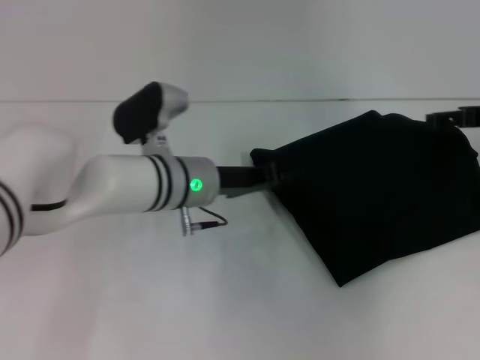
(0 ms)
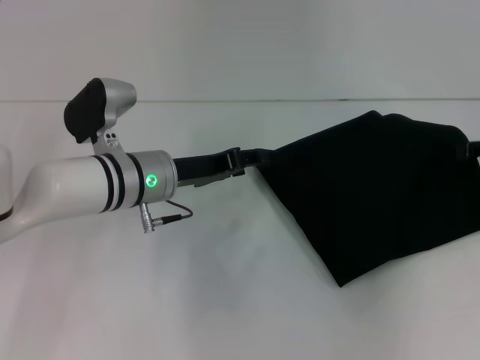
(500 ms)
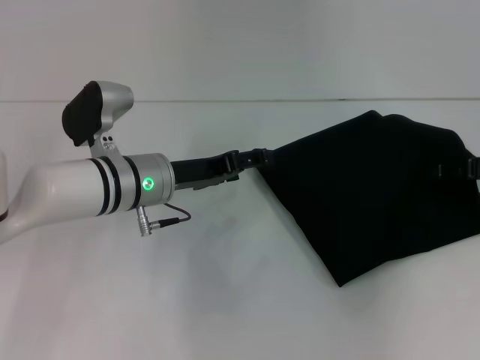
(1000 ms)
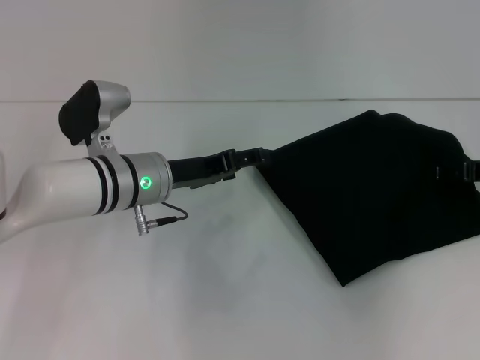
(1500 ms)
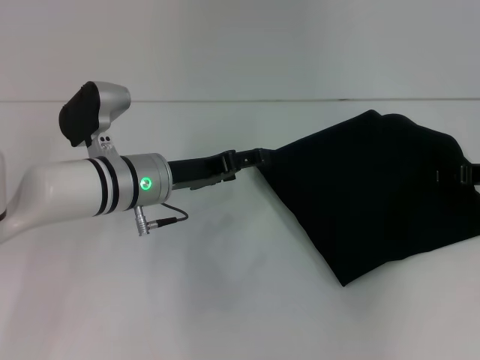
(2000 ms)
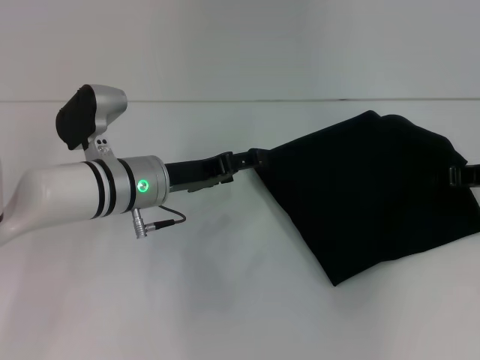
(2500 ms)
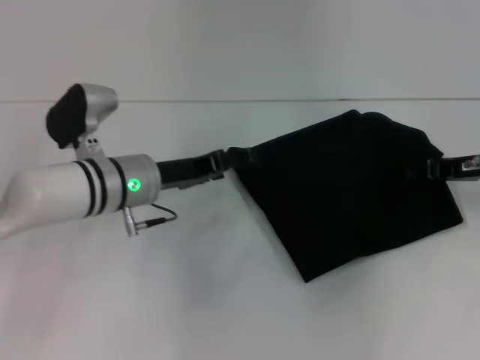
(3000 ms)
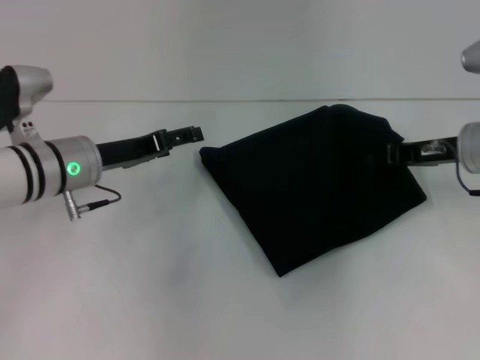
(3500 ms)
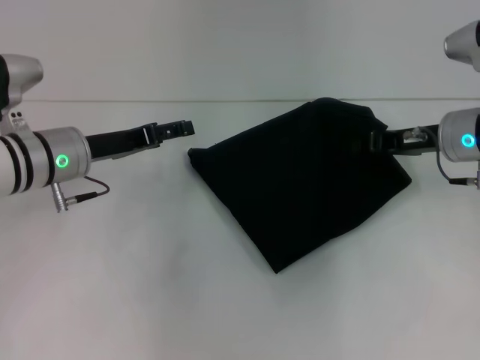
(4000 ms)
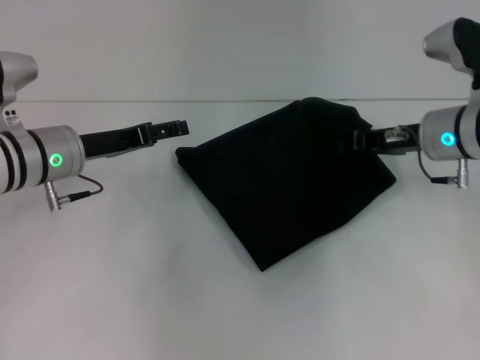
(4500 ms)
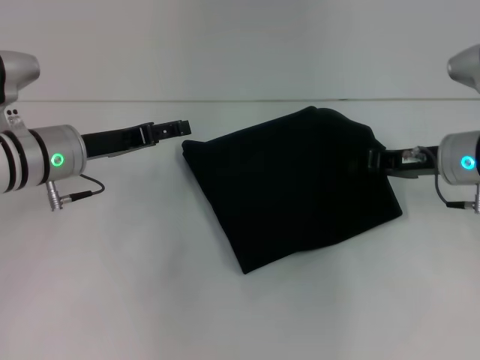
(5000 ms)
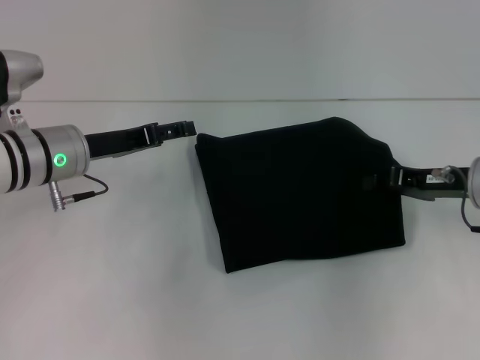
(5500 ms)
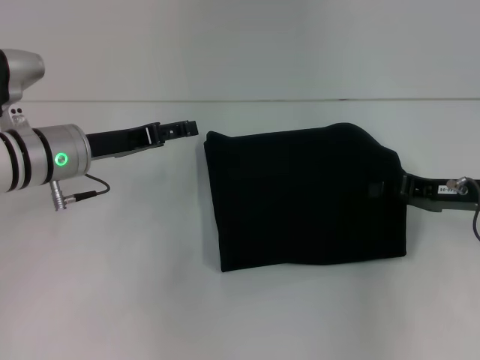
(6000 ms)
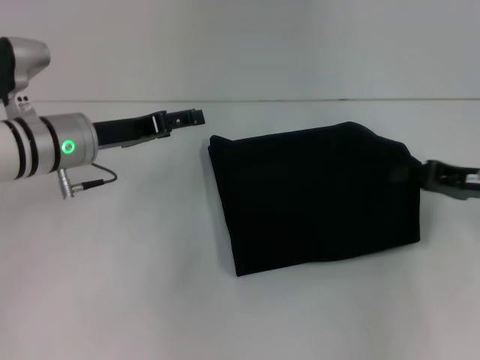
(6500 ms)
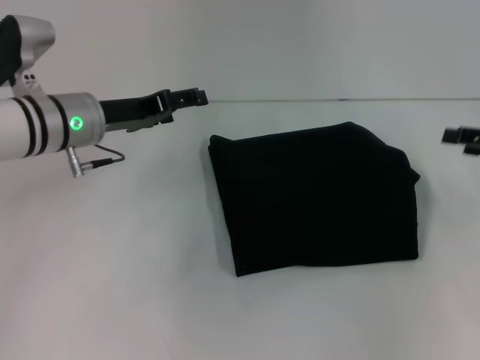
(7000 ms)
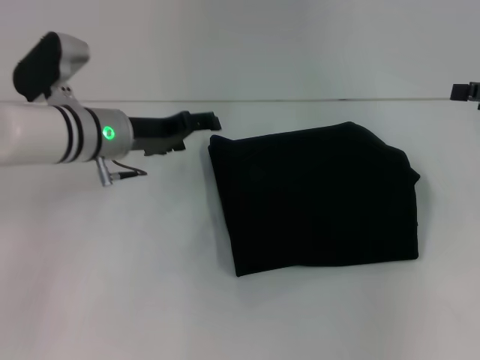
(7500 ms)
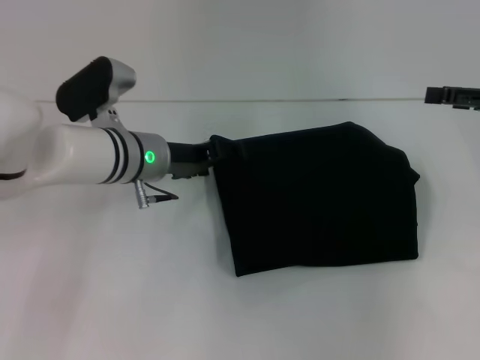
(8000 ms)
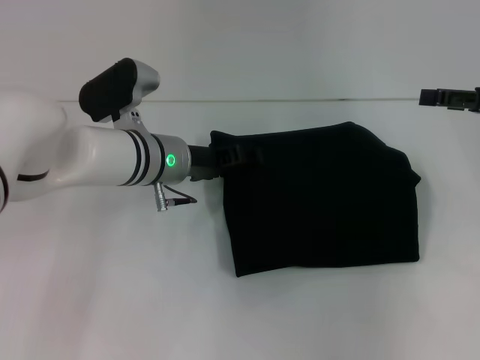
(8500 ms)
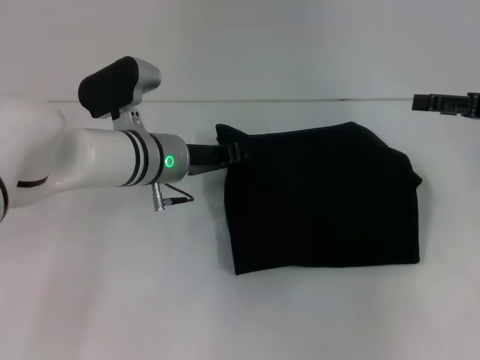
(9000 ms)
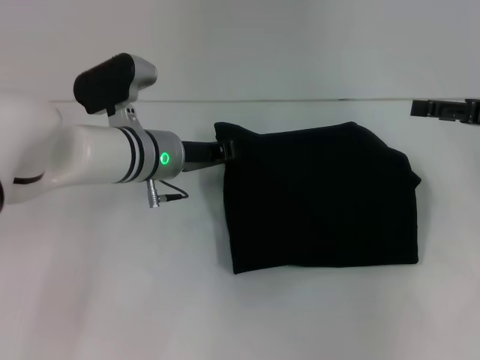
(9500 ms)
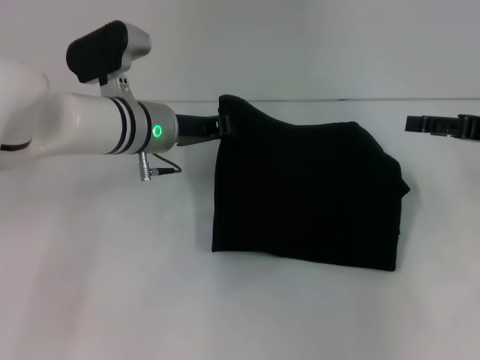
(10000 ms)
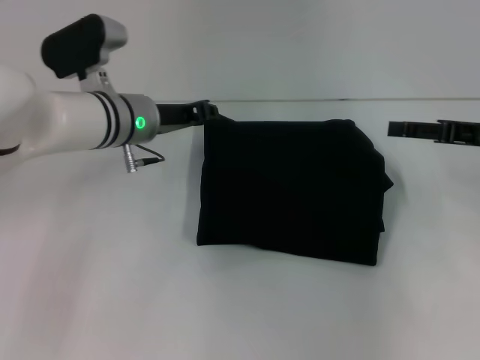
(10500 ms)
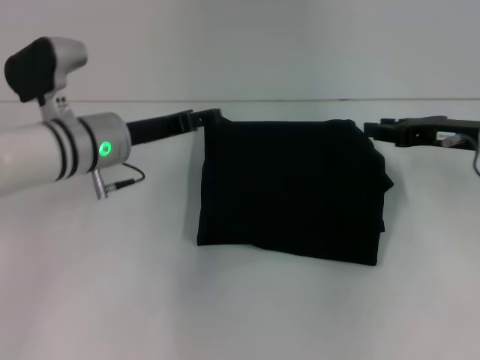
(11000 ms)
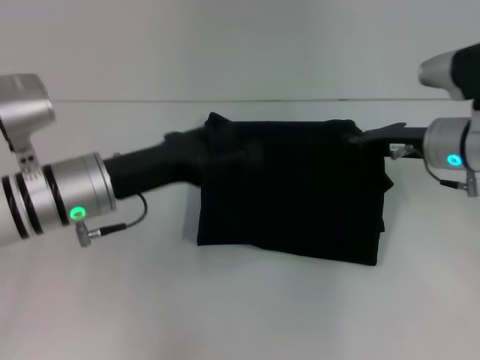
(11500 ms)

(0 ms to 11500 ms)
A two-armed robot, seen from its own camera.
0 ms - 2000 ms: The left gripper opens its fingers; the right gripper heads downward, covering approximately 5 cm.
2000 ms - 4000 ms: Both grippers move to the left, some 10 cm. The right gripper closes its fingers.
4000 ms - 6000 ms: The right gripper travels backward by some 5 cm.
6000 ms - 7500 ms: The left gripper shifts by roughly 5 cm; the right gripper shifts about 15 cm upward and to the right, and opens its fingers.
7500 ms - 9500 ms: The left gripper goes roughly 5 cm to the right, and closes its fingers.
9500 ms - 11500 ms: The left gripper moves backward and to the left, roughly 10 cm, and opens, while the right gripper travels to the left and downward by roughly 10 cm, and closes.

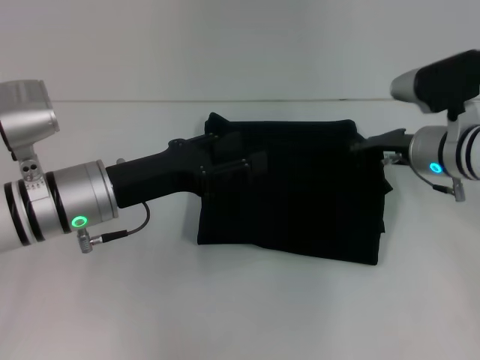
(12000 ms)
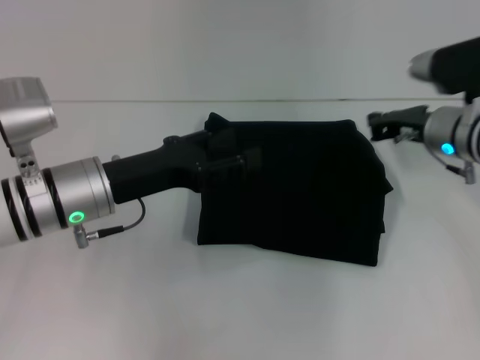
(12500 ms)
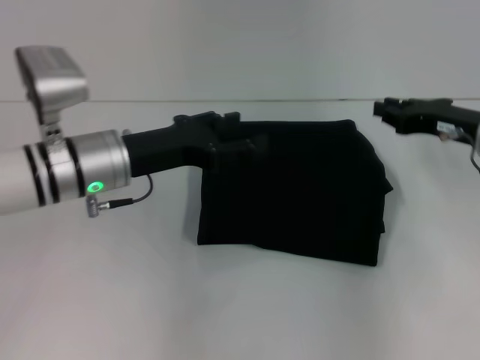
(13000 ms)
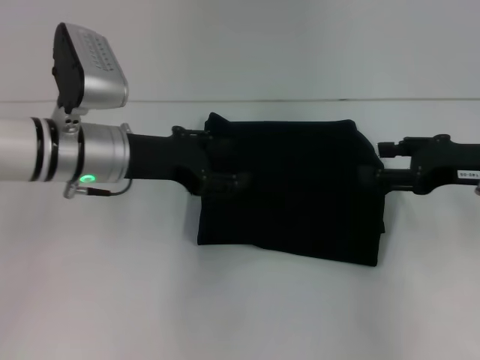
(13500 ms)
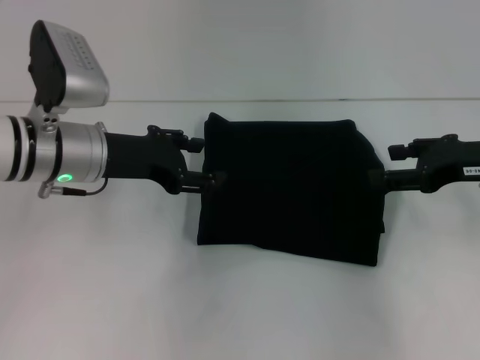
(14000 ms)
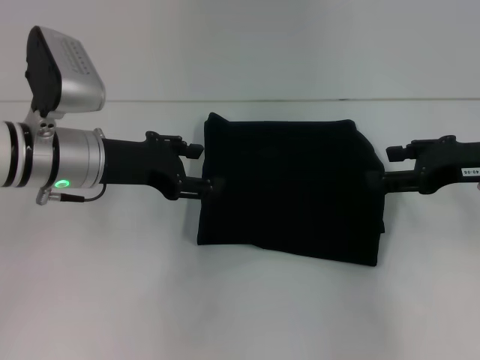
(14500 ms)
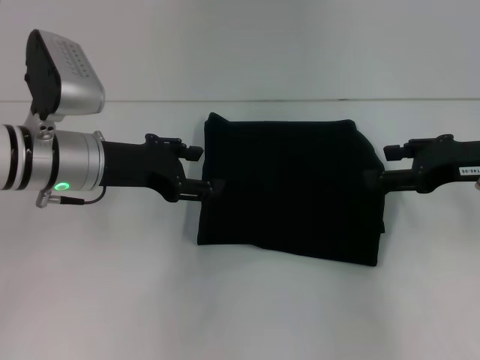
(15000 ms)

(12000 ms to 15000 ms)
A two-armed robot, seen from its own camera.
12000 ms - 13500 ms: The right gripper goes about 10 cm to the right and backward, and opens up. The left gripper moves about 5 cm.
13500 ms - 15000 ms: The grippers move only a little.
